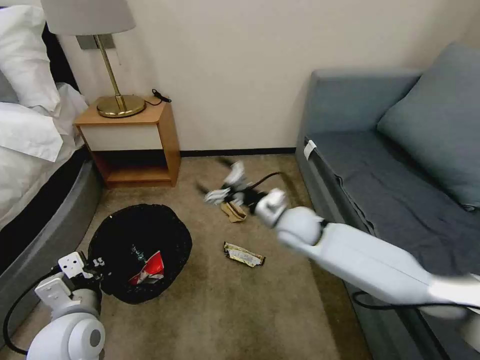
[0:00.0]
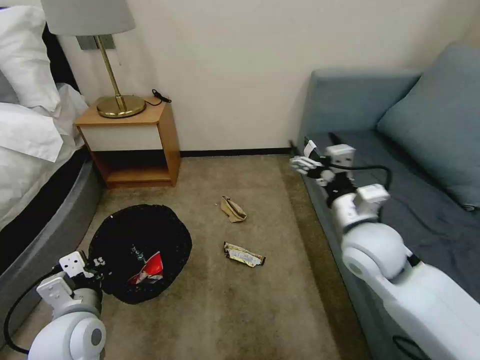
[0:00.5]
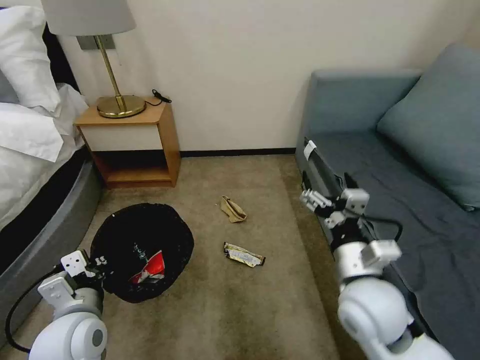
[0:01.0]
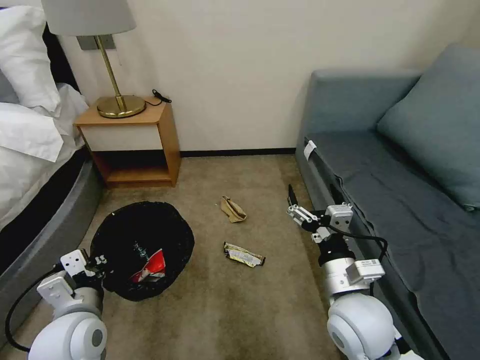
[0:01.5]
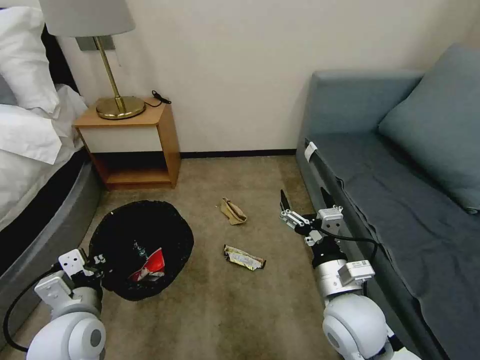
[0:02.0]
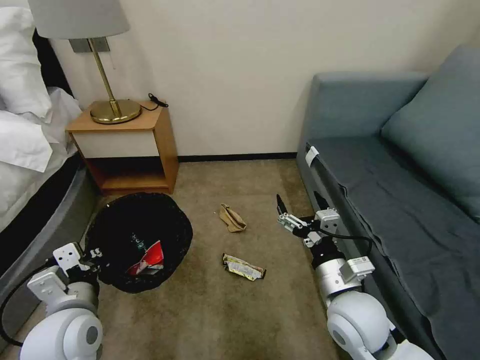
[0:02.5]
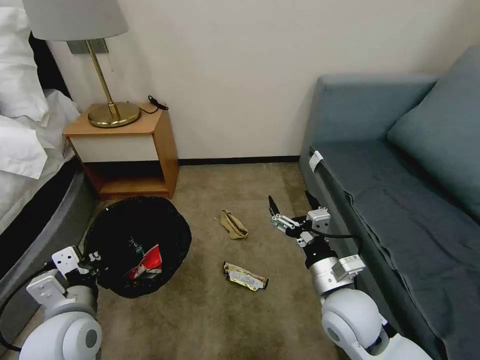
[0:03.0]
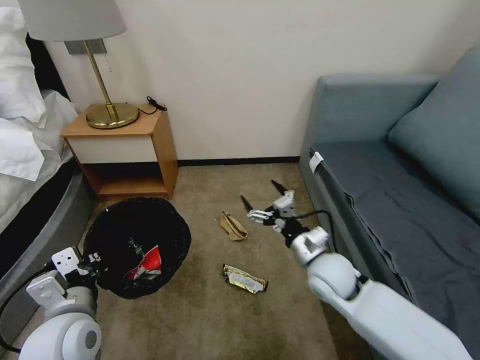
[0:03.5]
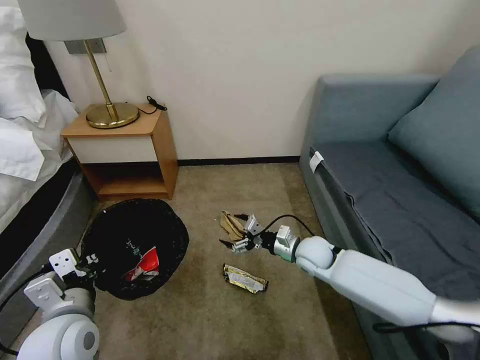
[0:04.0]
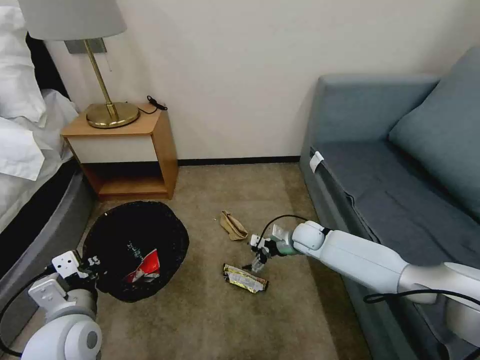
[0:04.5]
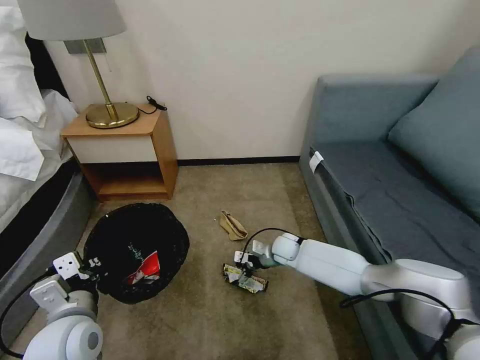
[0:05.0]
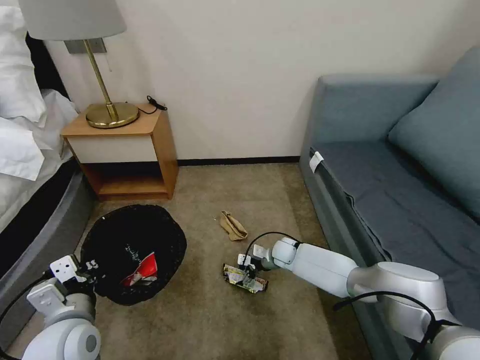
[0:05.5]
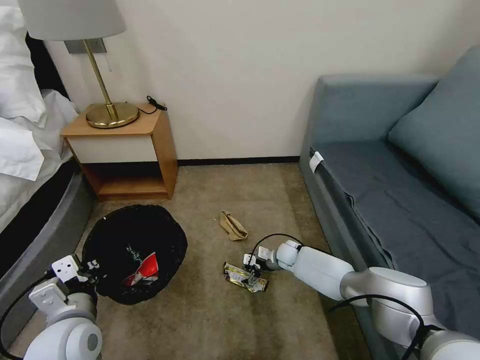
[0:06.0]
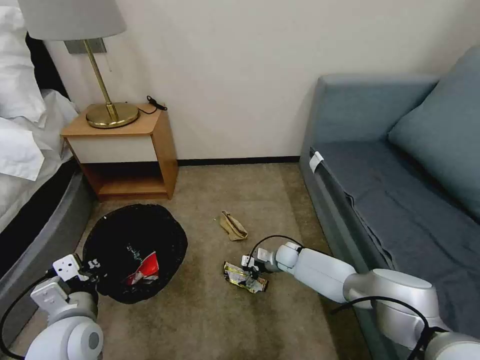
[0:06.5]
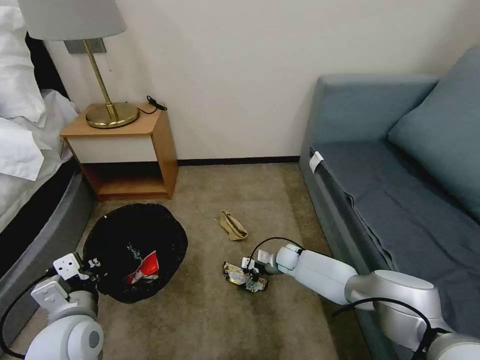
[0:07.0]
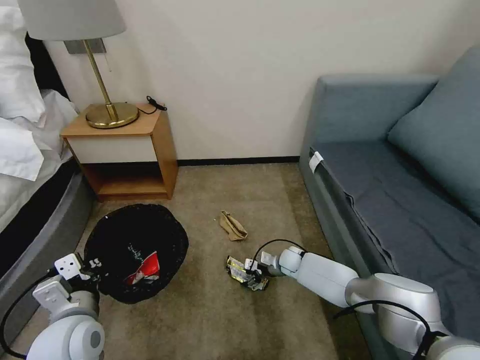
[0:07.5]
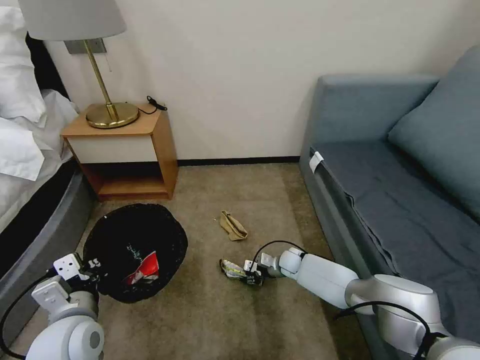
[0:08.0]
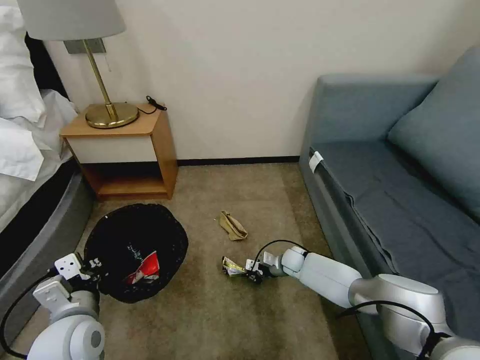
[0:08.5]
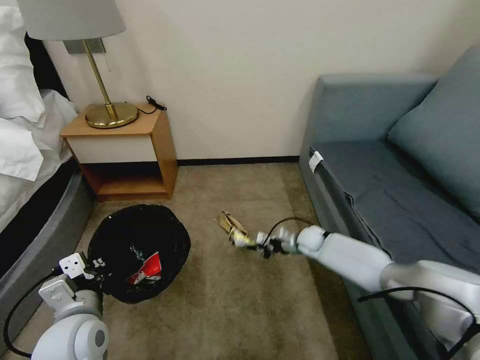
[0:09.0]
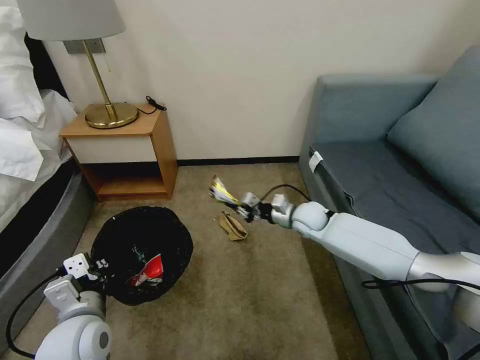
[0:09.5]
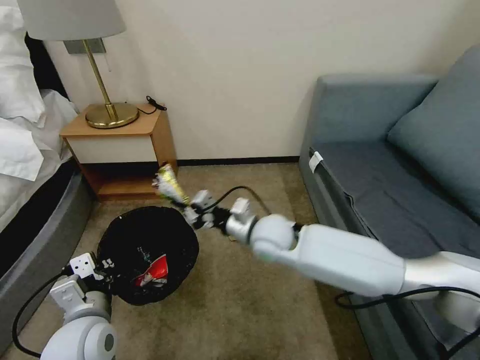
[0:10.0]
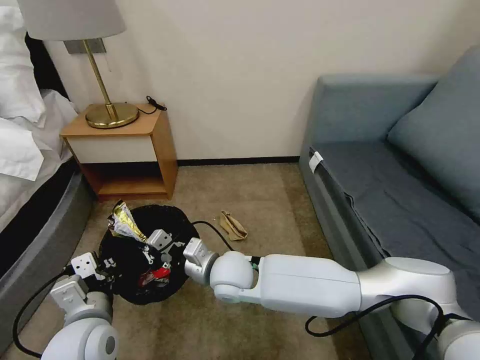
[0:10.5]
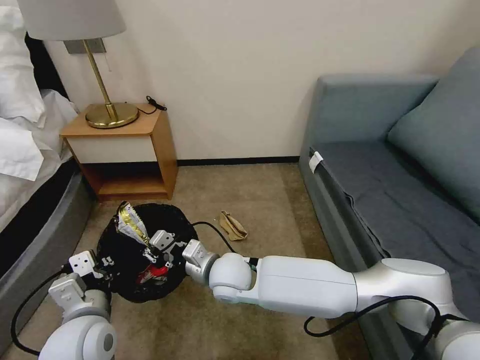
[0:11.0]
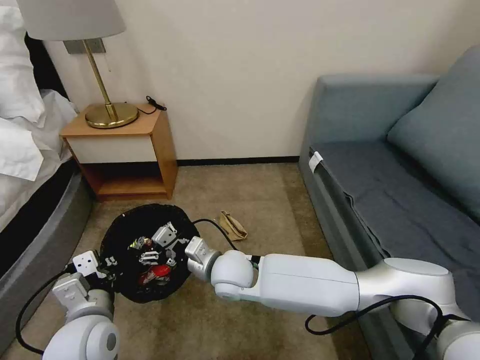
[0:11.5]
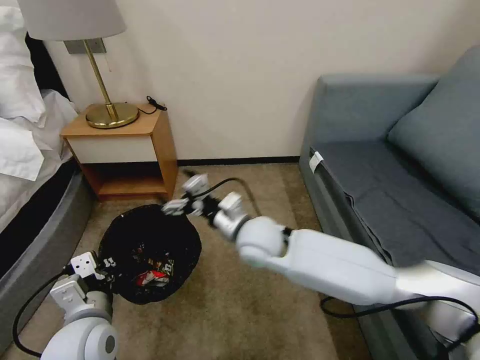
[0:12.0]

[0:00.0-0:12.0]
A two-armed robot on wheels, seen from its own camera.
Task of the whole recording: Pick up the trash bin, then pick up the garbage on the floor and place it into the trash bin.
0:00.0 to 0:02.0: The right gripper travels backward by roughly 20 cm.
0:02.0 to 0:04.0: The right gripper travels forward and downward by some 20 cm.
0:04.0 to 0:06.0: The right gripper goes roughly 15 cm downward and forward.
0:06.0 to 0:08.0: The right gripper closes.
0:08.0 to 0:10.0: The right gripper moves upward and to the left, roughly 30 cm, and closes.
0:10.0 to 0:12.0: The right gripper opens.

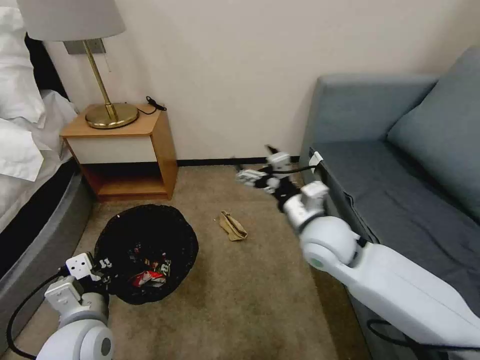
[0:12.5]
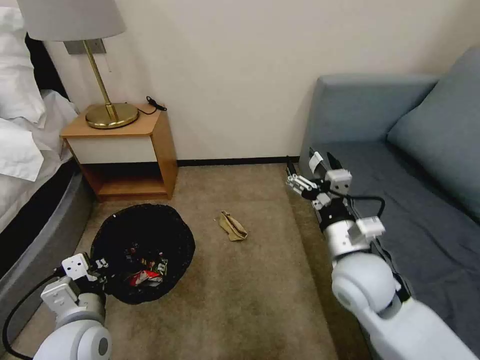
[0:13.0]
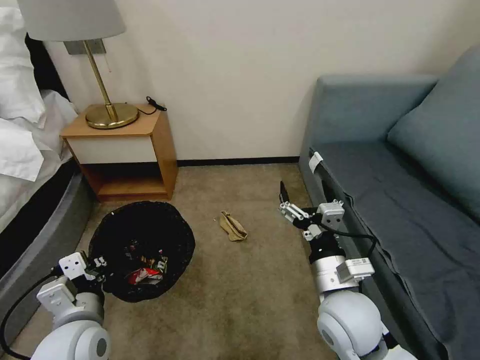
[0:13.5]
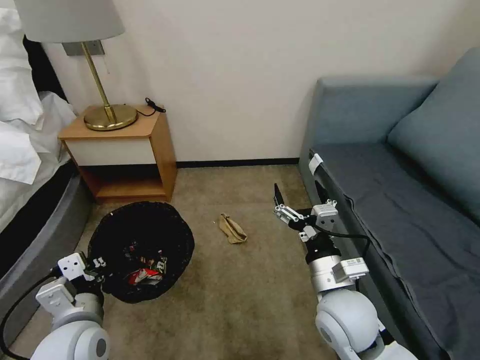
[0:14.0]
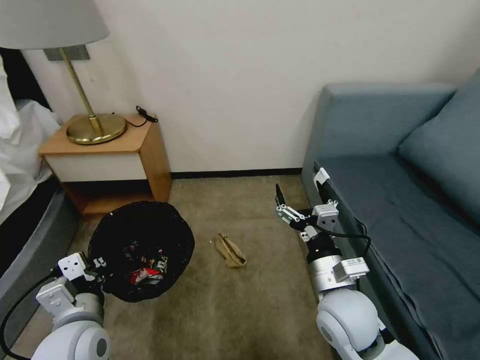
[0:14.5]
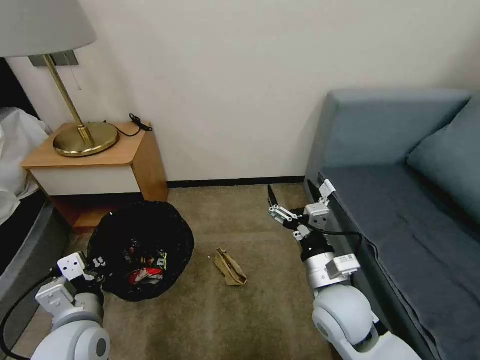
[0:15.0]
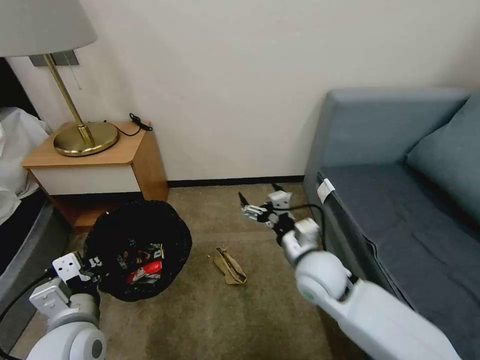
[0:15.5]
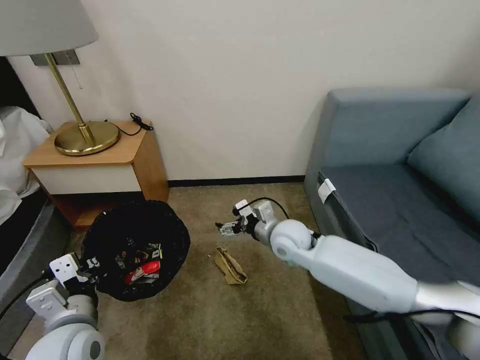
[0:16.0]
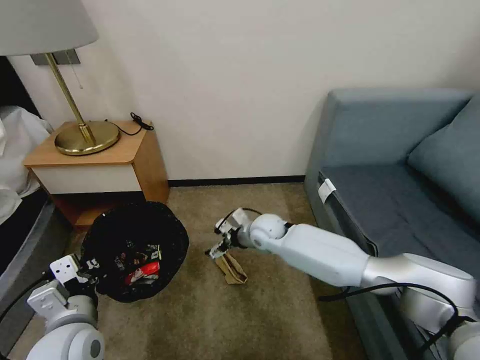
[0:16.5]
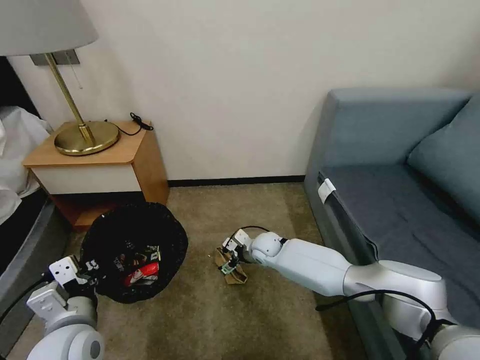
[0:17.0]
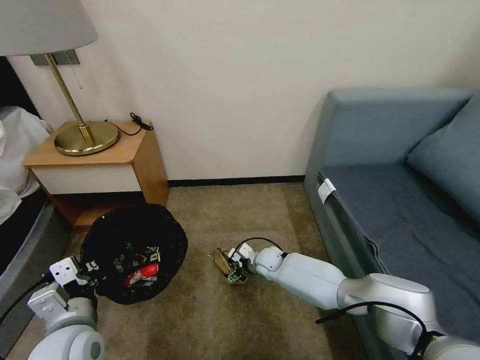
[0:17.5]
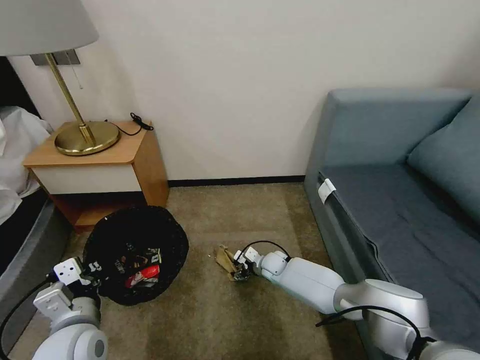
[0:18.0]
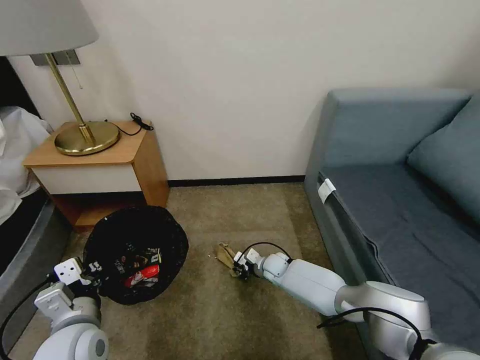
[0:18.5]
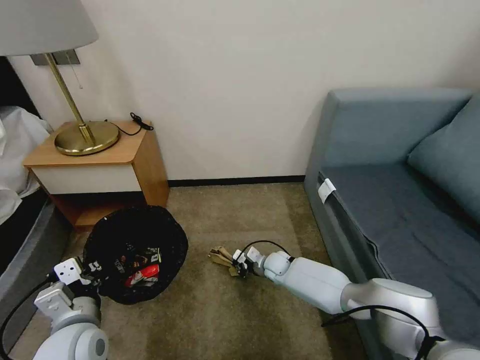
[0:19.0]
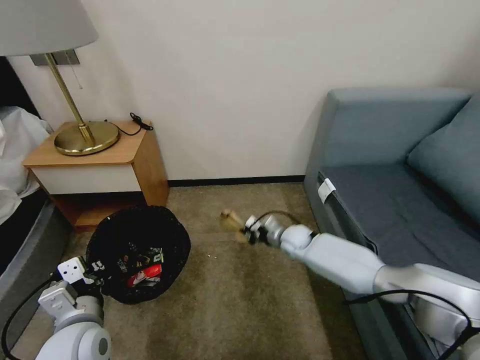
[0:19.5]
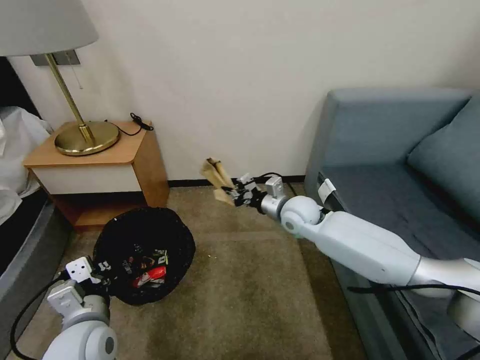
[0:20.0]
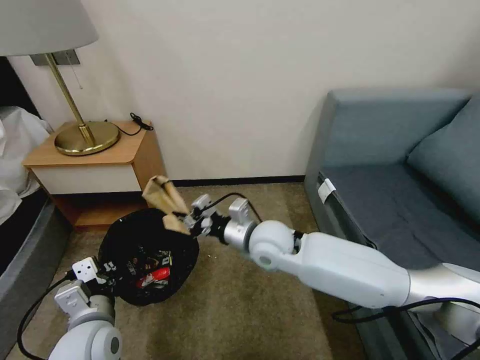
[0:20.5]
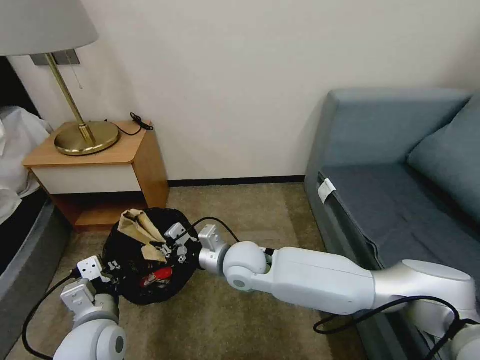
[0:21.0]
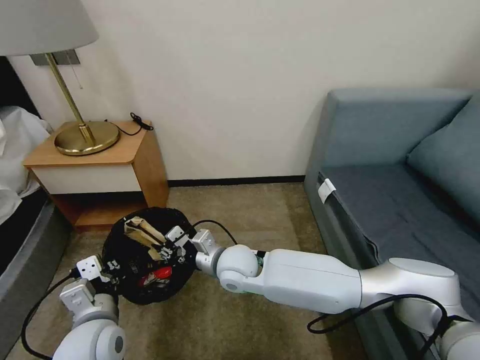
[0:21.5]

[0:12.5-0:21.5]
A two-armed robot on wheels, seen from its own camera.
Task of the whole recording: Pick up the trash bin, then pick up the garbage on the floor and place it into the trash bin.
0:12.5 to 0:14.5: The right gripper goes roughly 15 cm backward and downward.
0:14.5 to 0:17.0: The right gripper shifts about 30 cm forward and downward.
0:17.0 to 0:19.5: The right gripper goes approximately 10 cm to the right, travels downward and back again, some 10 cm each way, and closes up.
0:19.5 to 0:21.5: The right gripper travels to the left, backward and upward by roughly 25 cm.

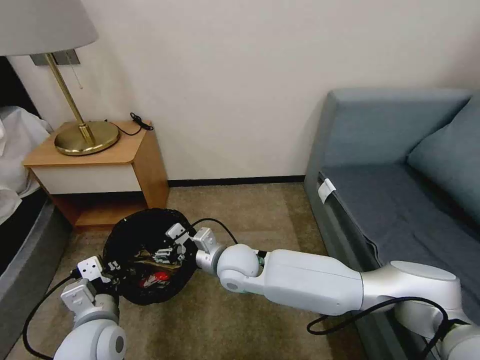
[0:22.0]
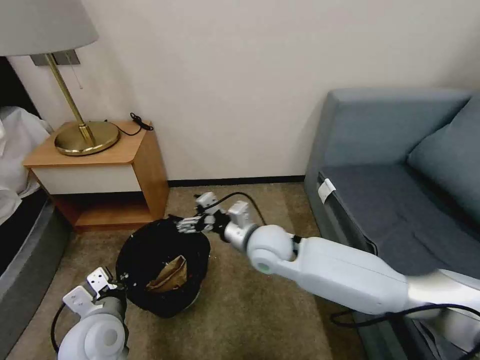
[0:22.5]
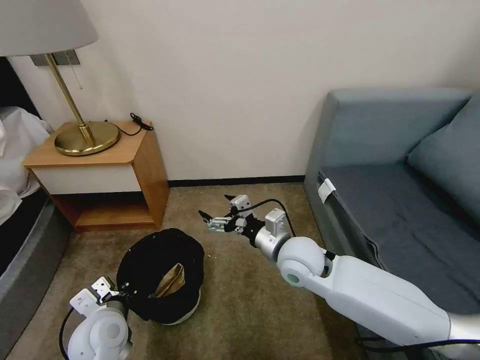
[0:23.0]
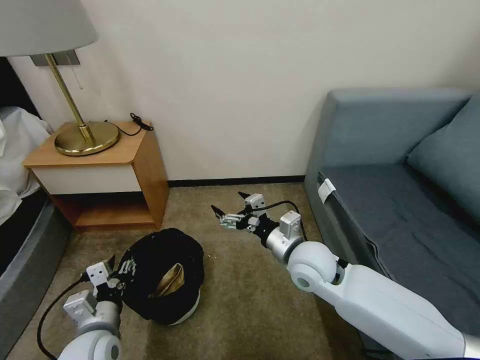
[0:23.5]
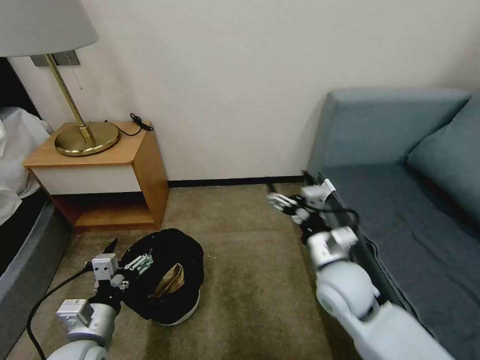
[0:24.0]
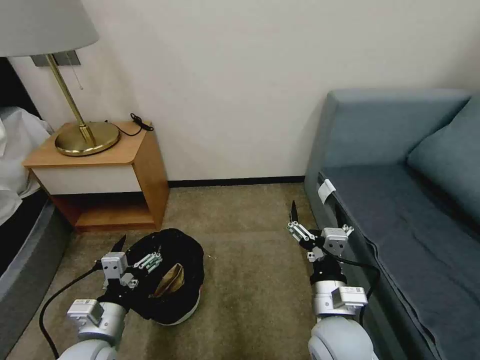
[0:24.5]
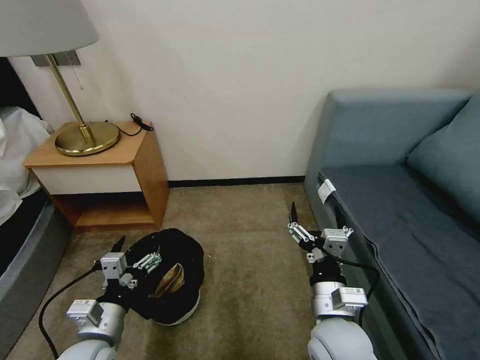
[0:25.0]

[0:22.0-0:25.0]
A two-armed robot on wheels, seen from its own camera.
Task of the whole recording: Pick up the trash bin, then pick up the garbage on the floor and place it into the trash bin.
0:22.0 to 0:23.5: The right gripper moves to the right, roughly 15 cm, while the left gripper changes place by approximately 5 cm, and opens.
0:23.5 to 0:25.0: The right gripper travels backward by approximately 15 cm. The left gripper opens its fingers.

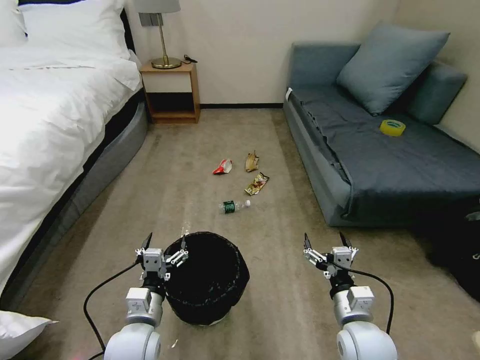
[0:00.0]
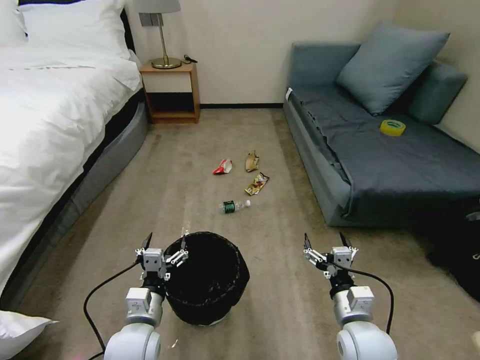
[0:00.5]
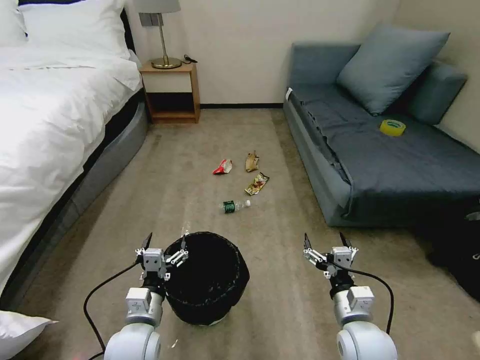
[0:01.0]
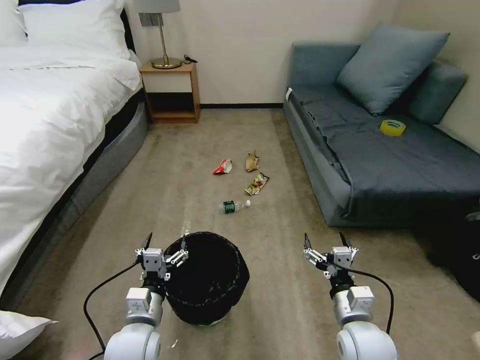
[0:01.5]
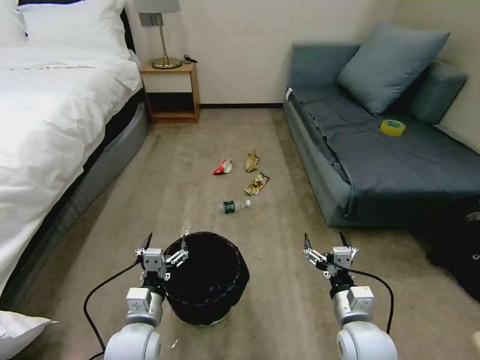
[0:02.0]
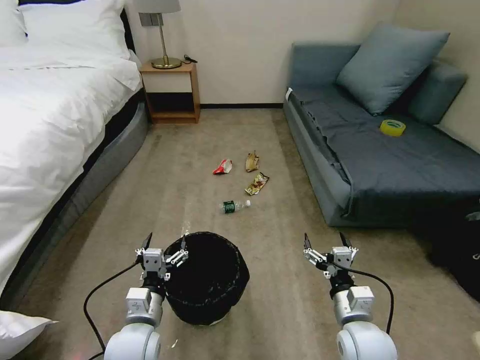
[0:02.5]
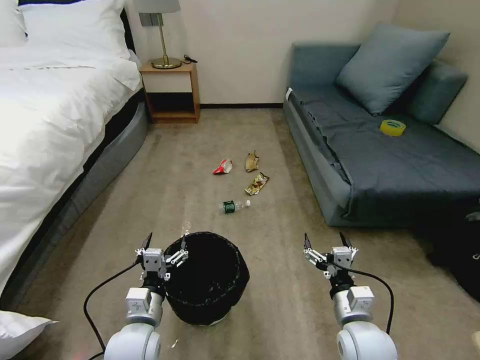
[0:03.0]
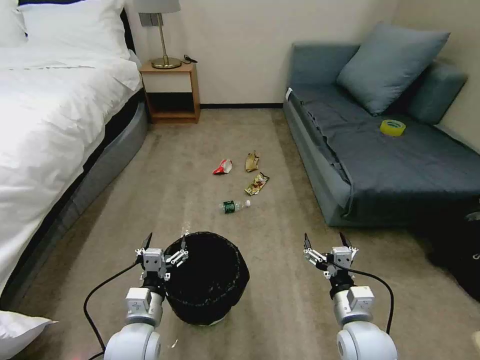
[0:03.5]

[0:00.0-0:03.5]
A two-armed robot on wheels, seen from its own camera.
Task of the whole recording: Pick up the trash bin, then pick up the garbage on the floor and place it into the trash bin.
0:02.0 to 0:03.5: The two grippers keep their place.
